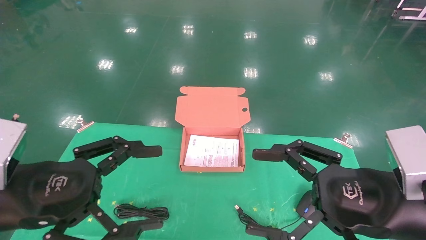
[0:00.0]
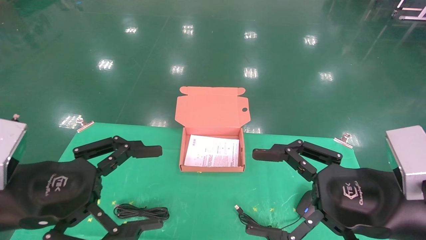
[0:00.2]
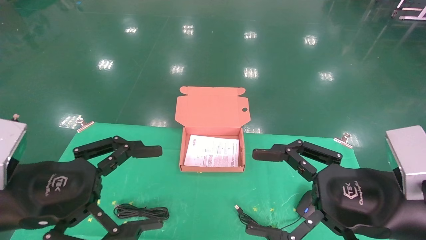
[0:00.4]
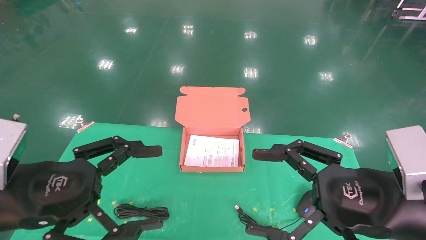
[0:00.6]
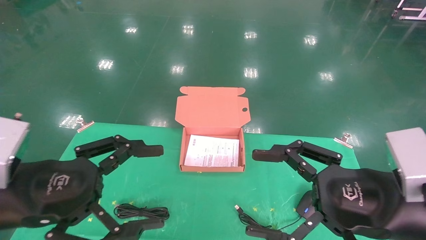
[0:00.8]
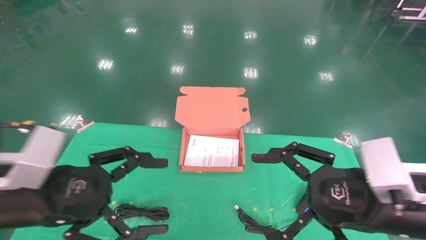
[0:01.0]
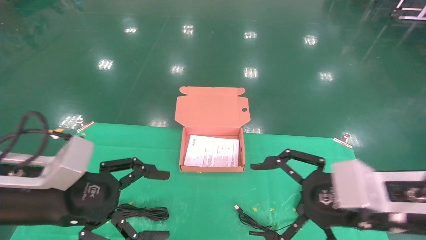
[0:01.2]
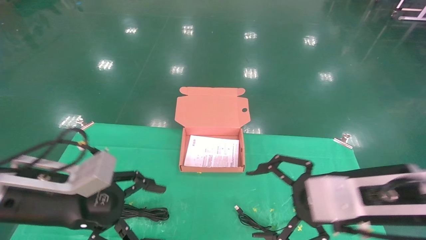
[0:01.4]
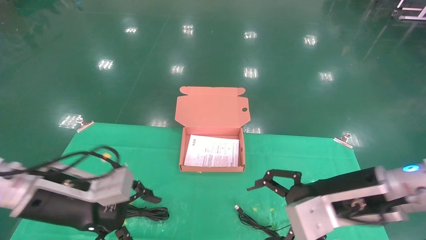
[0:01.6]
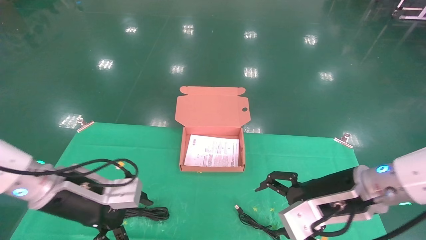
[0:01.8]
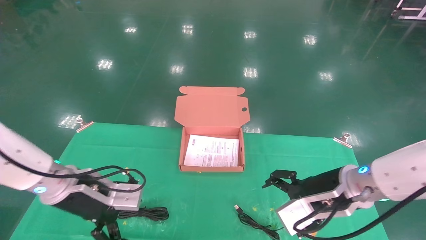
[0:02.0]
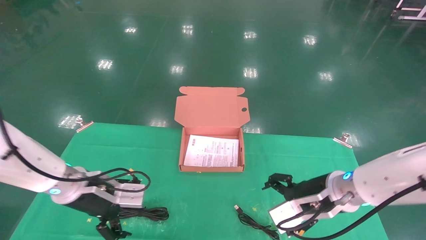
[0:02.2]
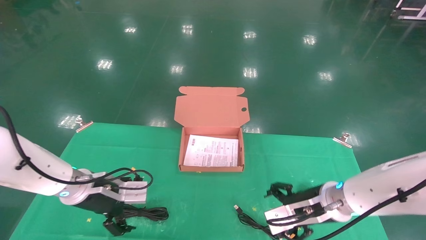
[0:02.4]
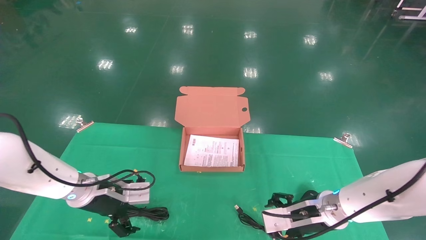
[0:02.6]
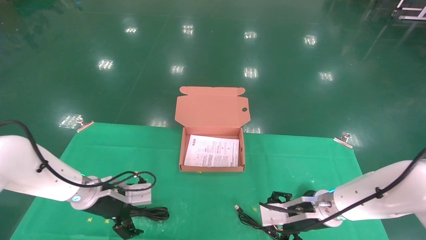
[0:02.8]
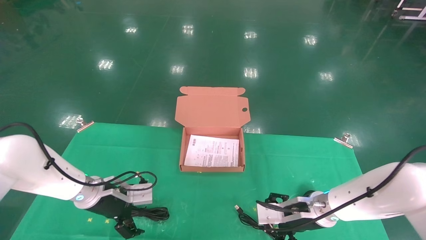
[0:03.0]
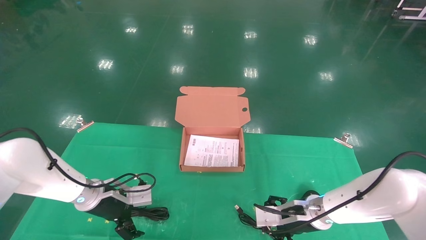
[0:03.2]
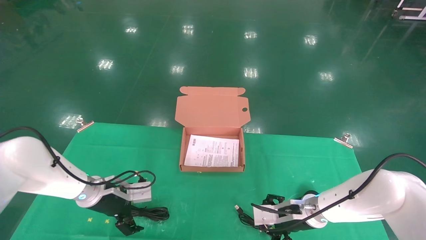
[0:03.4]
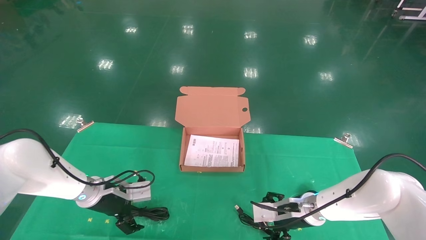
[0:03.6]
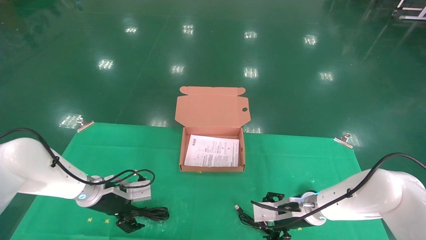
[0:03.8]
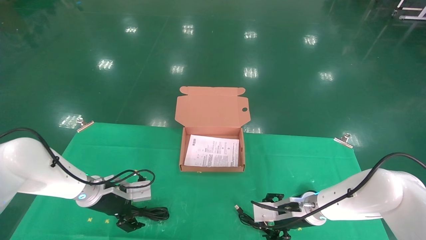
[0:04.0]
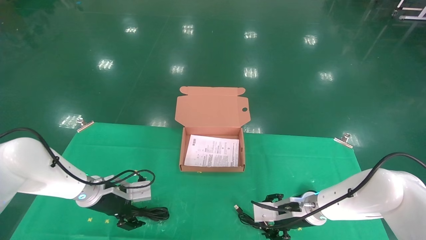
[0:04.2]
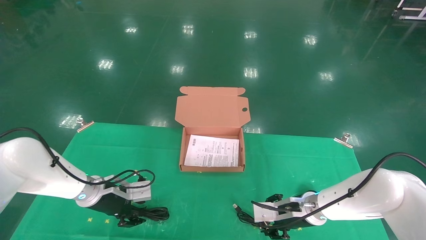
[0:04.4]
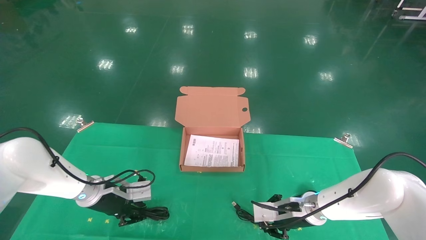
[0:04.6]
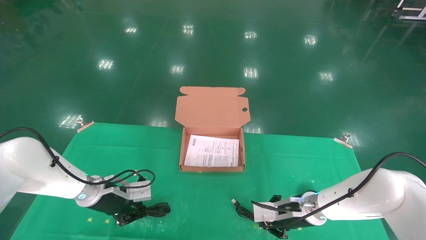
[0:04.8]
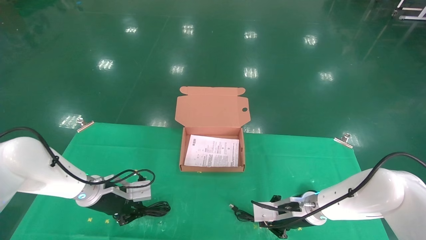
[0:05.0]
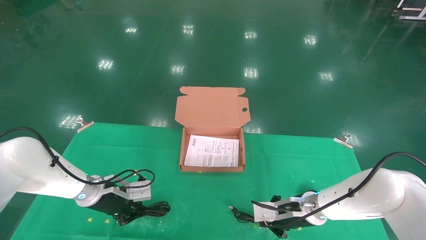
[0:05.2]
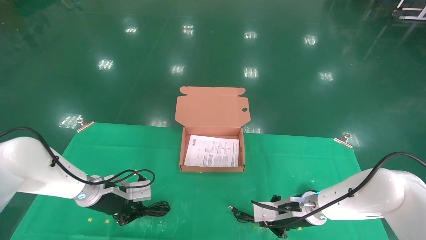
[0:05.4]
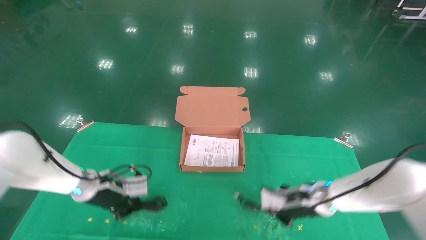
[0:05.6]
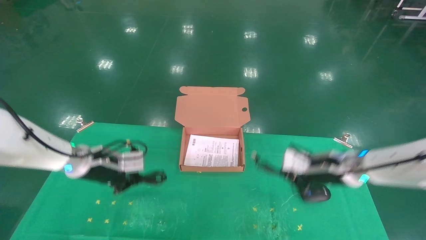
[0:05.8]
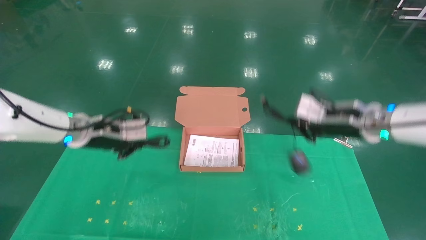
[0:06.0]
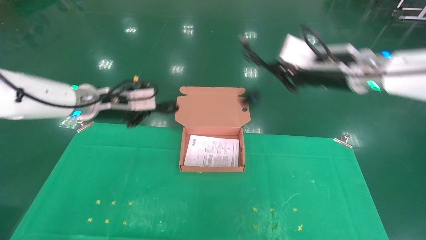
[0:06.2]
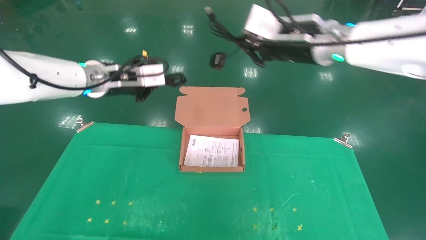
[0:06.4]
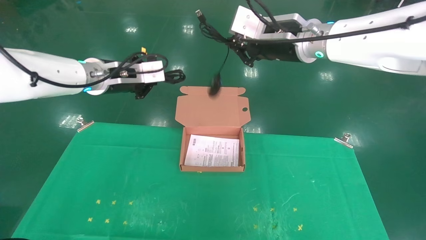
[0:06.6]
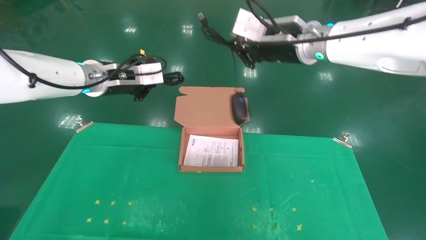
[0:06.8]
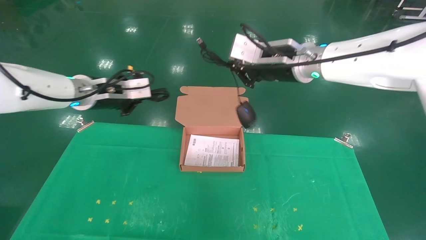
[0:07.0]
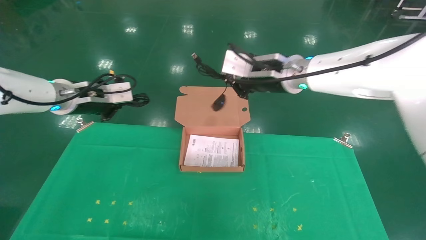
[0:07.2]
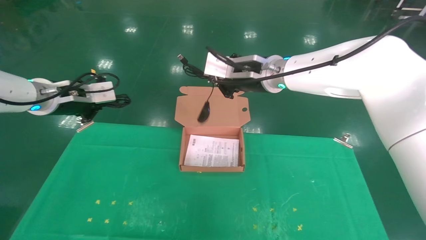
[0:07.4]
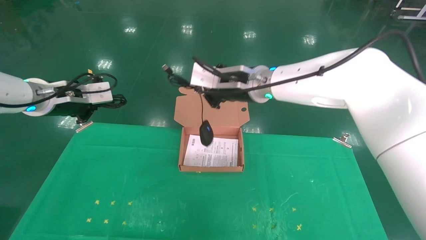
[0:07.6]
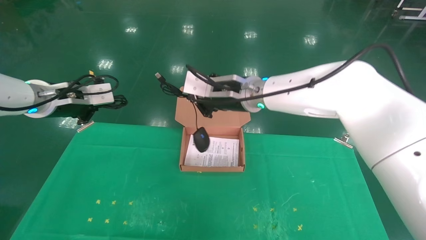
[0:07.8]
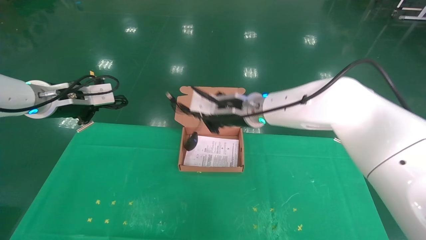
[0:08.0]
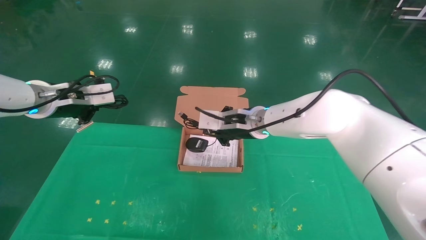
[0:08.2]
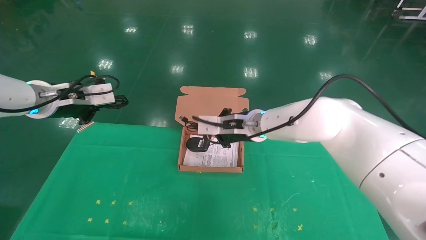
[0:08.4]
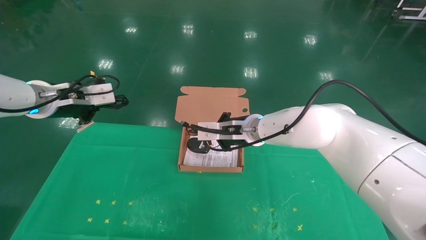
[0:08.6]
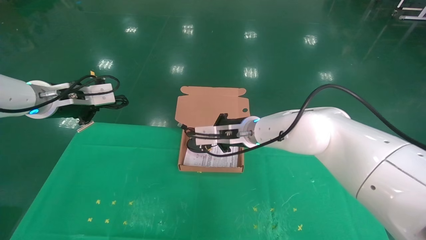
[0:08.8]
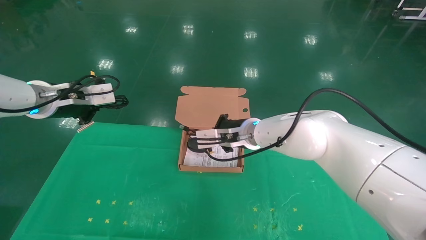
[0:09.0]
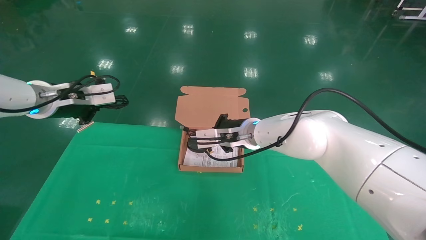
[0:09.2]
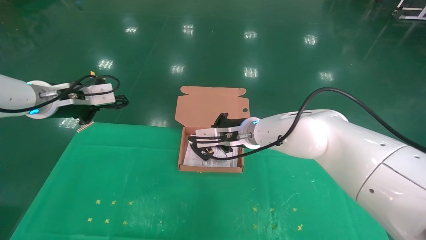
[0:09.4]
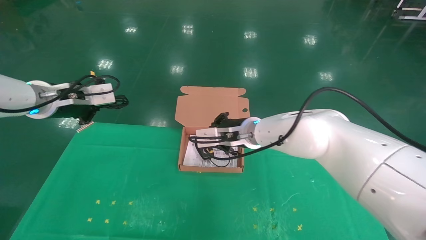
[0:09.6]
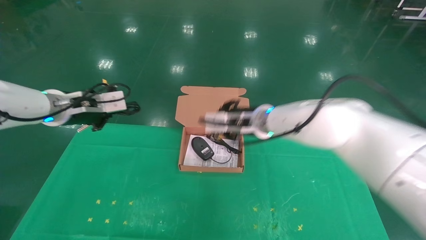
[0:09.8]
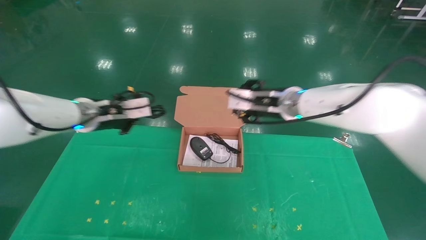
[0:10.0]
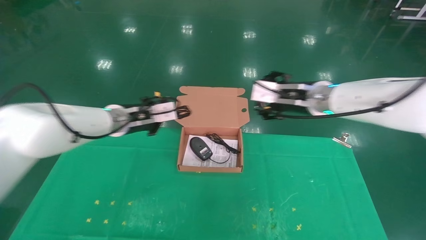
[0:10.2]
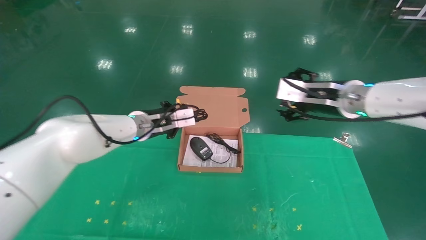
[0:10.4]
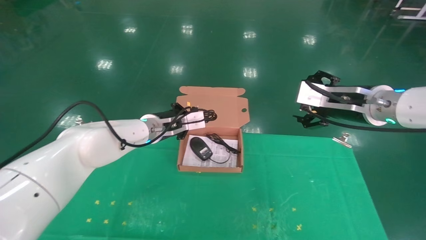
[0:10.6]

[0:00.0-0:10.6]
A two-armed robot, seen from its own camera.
Task of the whole recording: grasp data cable left put into box grasp mouse right put into box.
Step, 0:00.8 to 0:06.0: Grab and pick up both the mouse and power cord from the accessory packaging area at the same time.
0:00.0 to 0:01.6: Both grippers move forward, approximately 10 cm.
0:01.6 to 0:03.0: The right gripper moves downward and forward, about 15 cm, while the left gripper shifts roughly 15 cm forward and downward.
0:03.0 to 0:04.6: The left gripper closes. The right gripper closes.
0:04.6 to 0:06.0: Both grippers travel together upward, some 20 cm. The right gripper closes up; the left gripper closes.
0:06.0 to 0:07.6: The left gripper travels upward and to the left by approximately 10 cm, while the right gripper heads to the left, covering roughly 20 cm.
0:07.6 to 0:09.0: The right gripper travels downward by roughly 10 cm.
0:09.0 to 0:10.6: The left gripper moves to the right, downward and forward, roughly 25 cm. Meanwhile the right gripper is displaced to the right and backward by about 25 cm, and opens up.

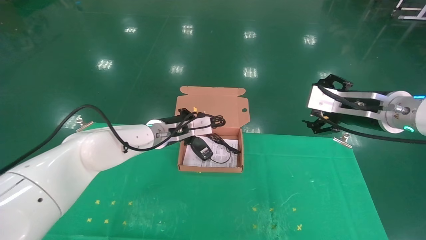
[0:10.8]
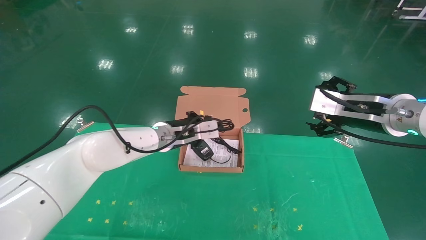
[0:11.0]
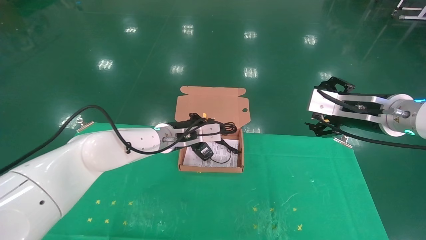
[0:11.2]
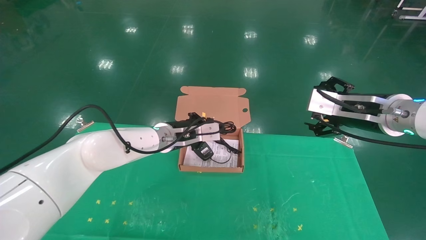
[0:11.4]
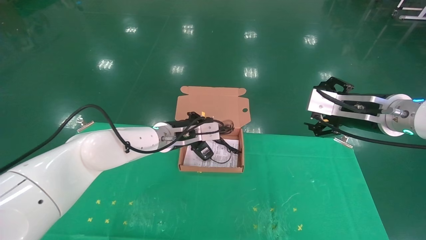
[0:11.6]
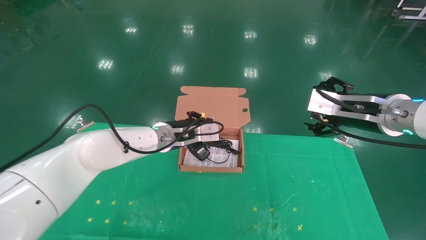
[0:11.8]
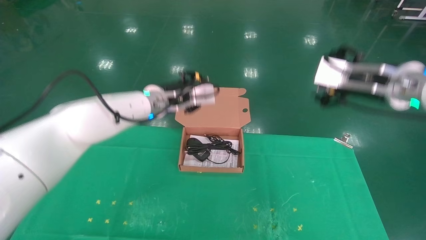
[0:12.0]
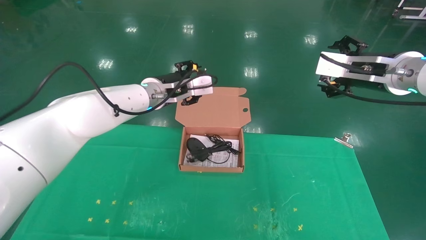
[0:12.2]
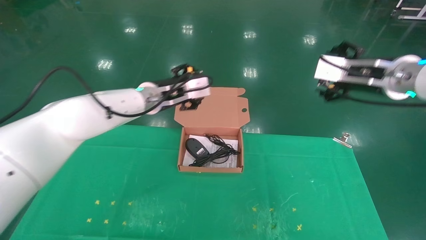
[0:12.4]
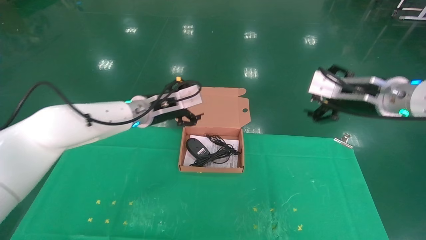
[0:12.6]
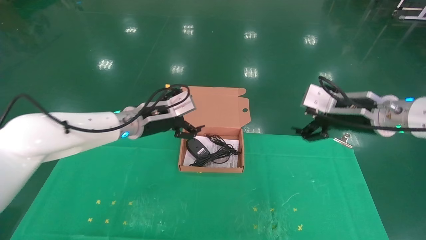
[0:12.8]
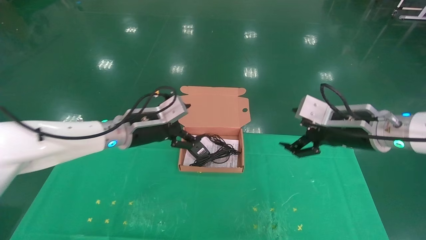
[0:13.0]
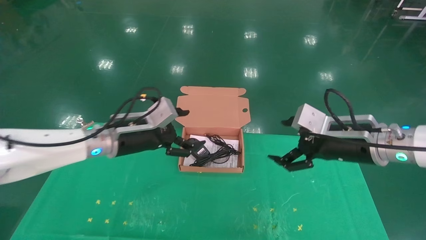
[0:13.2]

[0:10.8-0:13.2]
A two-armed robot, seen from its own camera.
Task of the whole recording: grasp data cable left put into box grasp mouse right put into box.
0:10.8 to 0:12.0: The left gripper goes about 5 cm upward.
0:12.0 to 0:13.2: The right gripper is displaced downward by some 10 cm; the left gripper heads to the left, backward and downward, covering roughly 10 cm, and opens.
